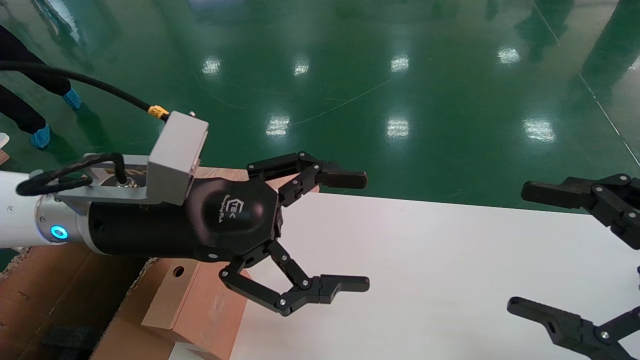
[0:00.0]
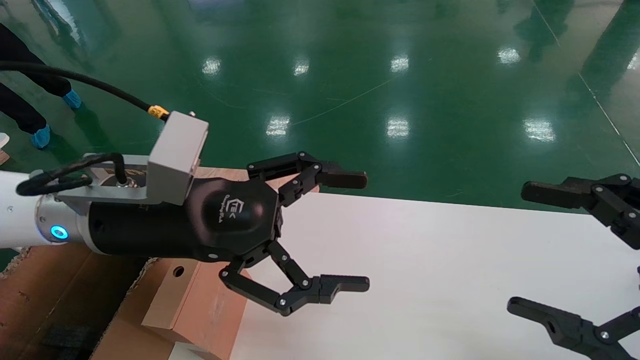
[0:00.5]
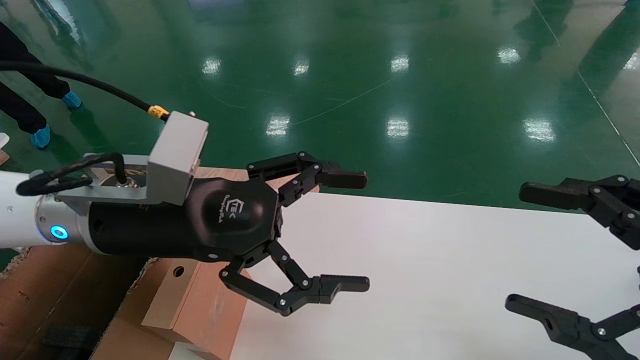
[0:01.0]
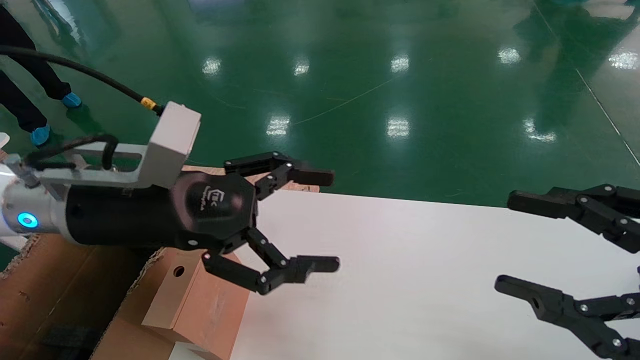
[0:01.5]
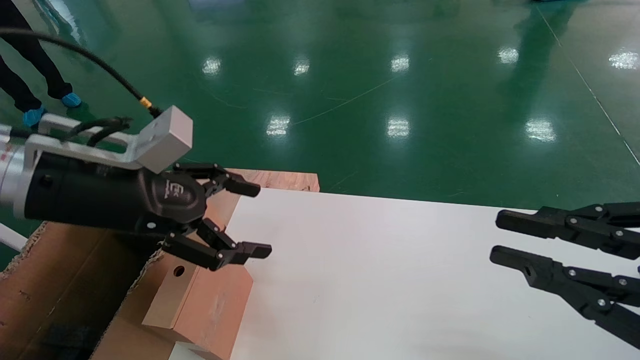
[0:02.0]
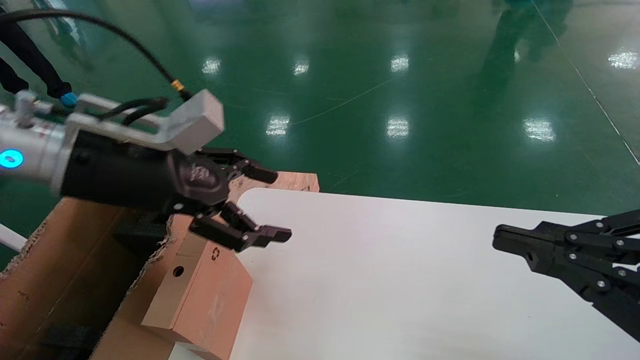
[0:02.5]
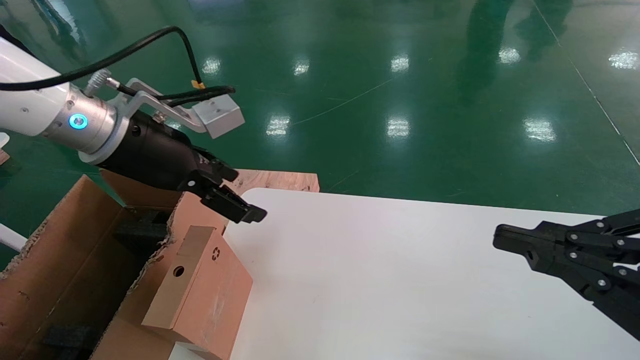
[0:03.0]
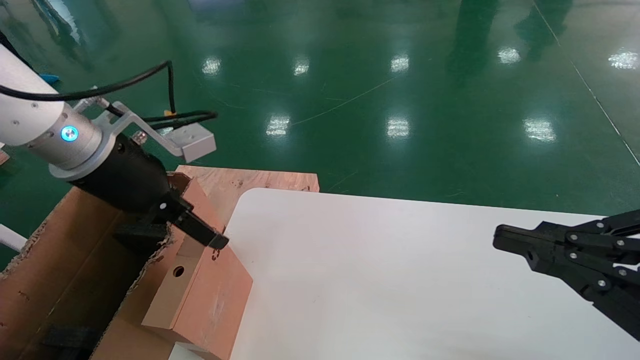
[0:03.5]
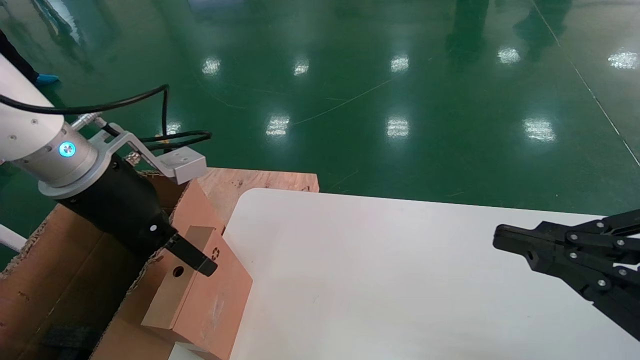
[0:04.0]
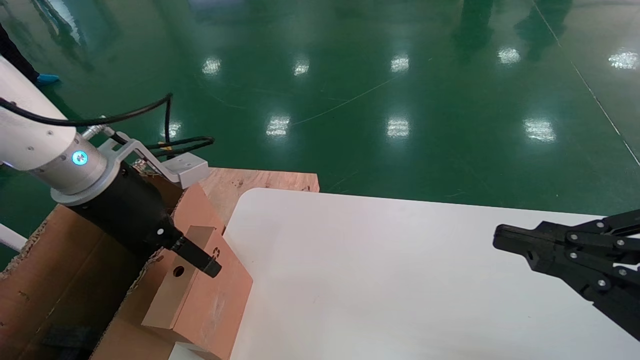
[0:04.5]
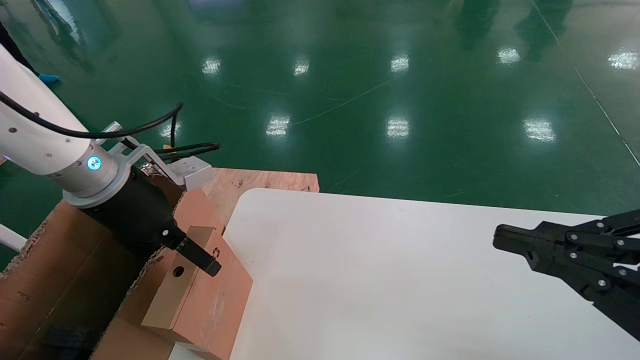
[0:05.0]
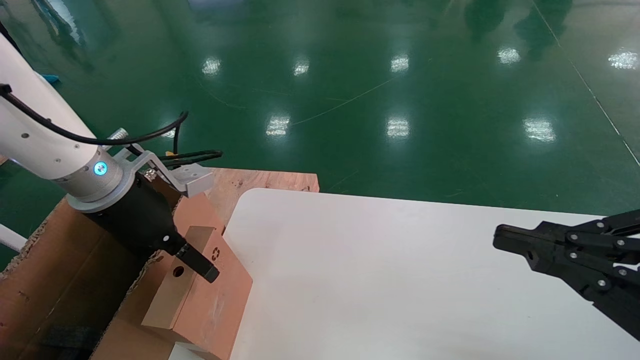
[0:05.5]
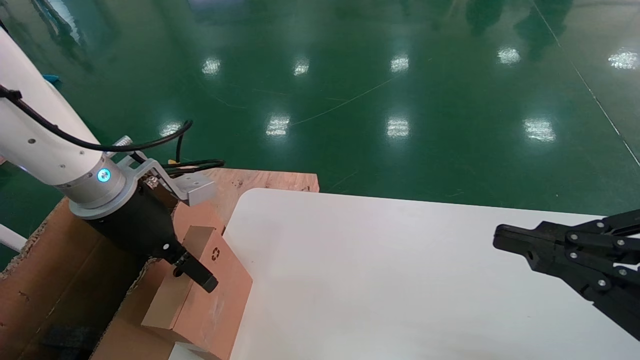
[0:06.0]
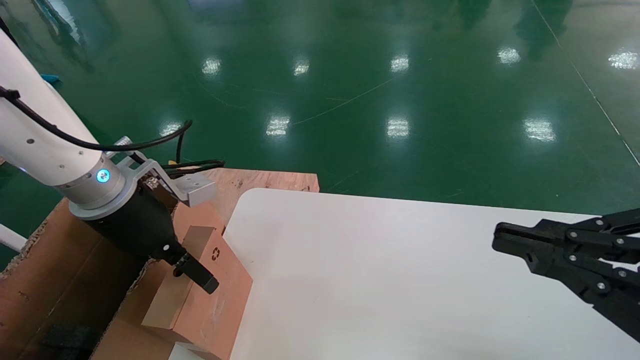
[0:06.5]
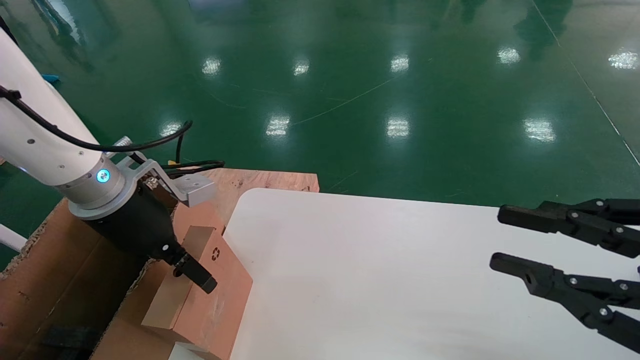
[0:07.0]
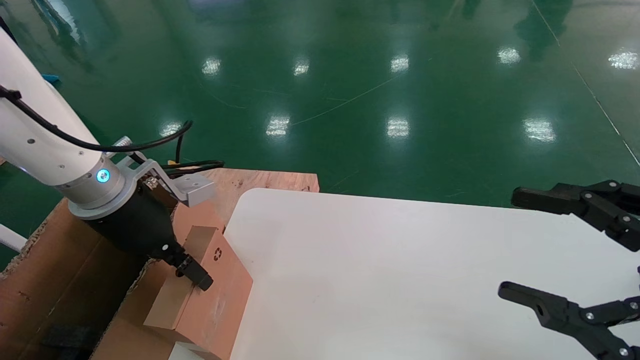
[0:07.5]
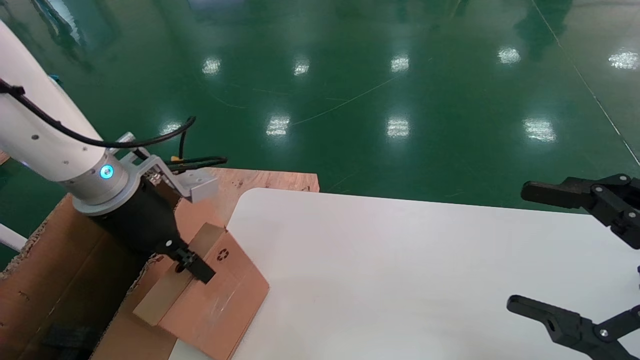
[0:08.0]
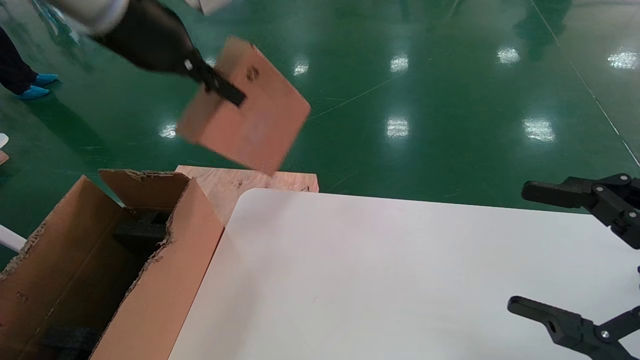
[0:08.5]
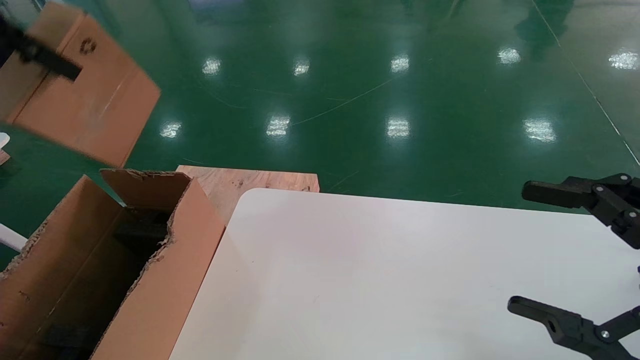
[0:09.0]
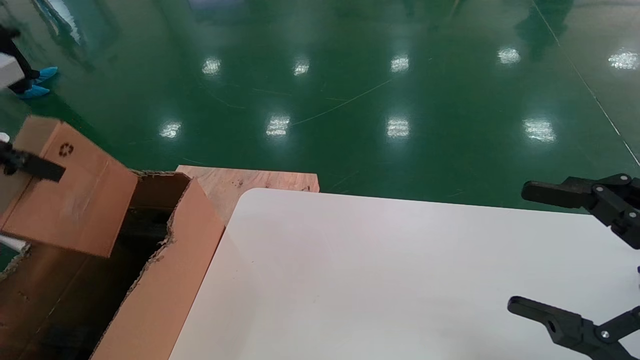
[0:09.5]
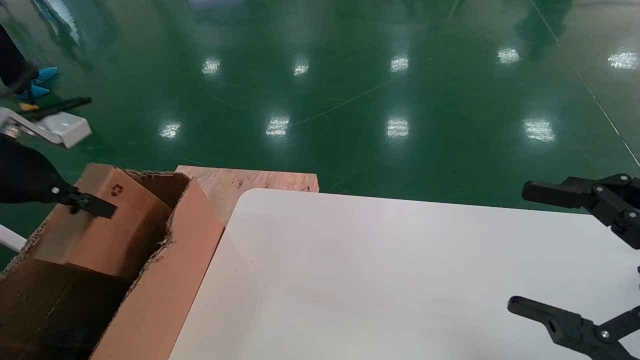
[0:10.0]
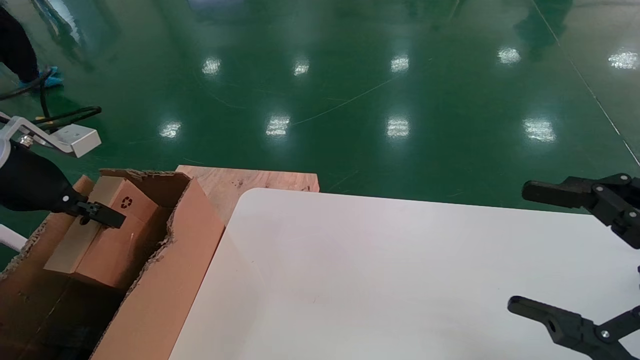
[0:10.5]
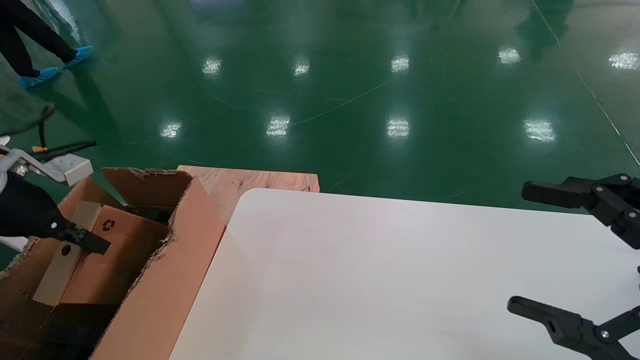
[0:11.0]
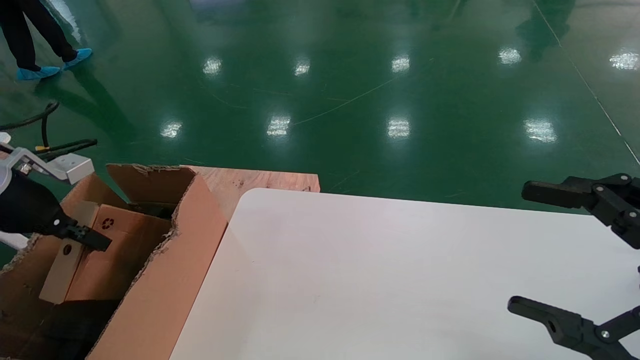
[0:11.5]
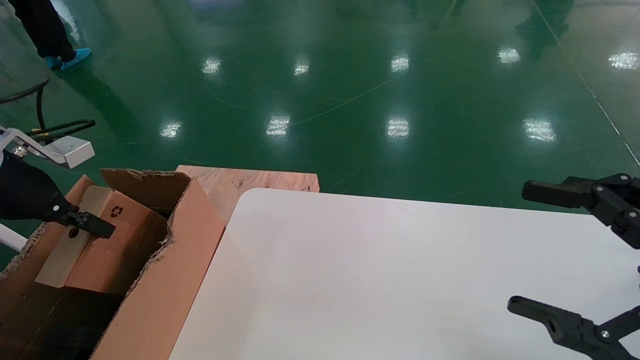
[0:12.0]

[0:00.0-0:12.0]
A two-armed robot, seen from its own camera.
Task of the whole recording: place the small box on the table into the large box on the left.
Step, 0:02.0 to 0:08.0: Pick up the mouse and the power cord paper box.
0:00.0 to 0:02.0: The right gripper closes, while the left gripper heads to the left, covering approximately 5 cm.
0:04.0 to 0:06.0: The grippers stay close to where they were, moving slightly.
0:06.0 to 0:08.0: The right gripper opens its fingers. Meanwhile the left gripper closes its fingers.
0:08.0 to 0:10.0: The left gripper travels to the left by about 15 cm, and travels upward and back again, about 20 cm each way.

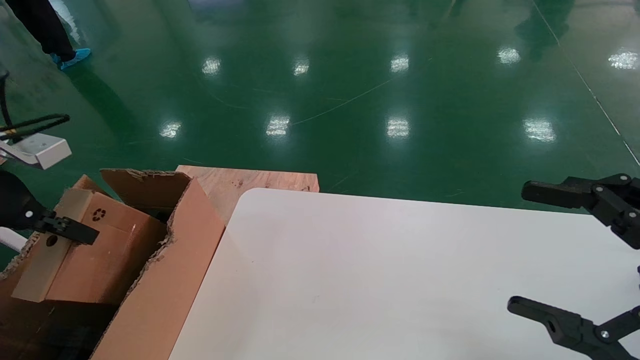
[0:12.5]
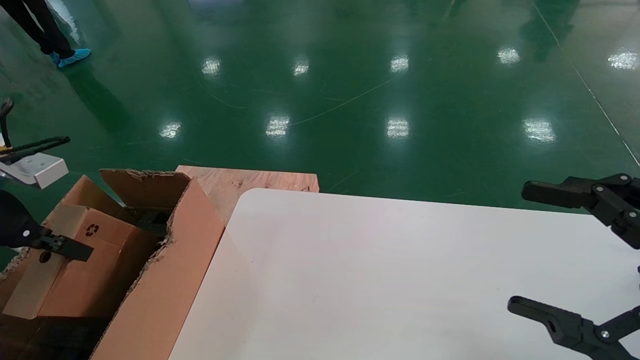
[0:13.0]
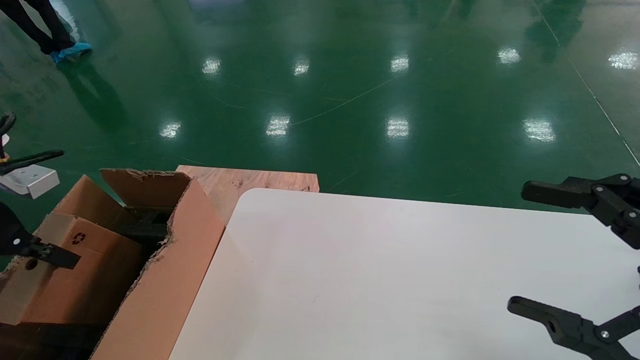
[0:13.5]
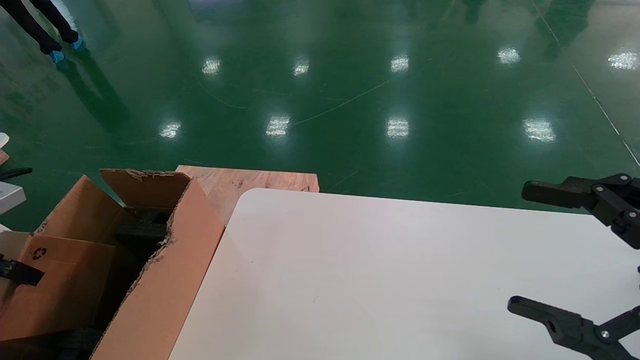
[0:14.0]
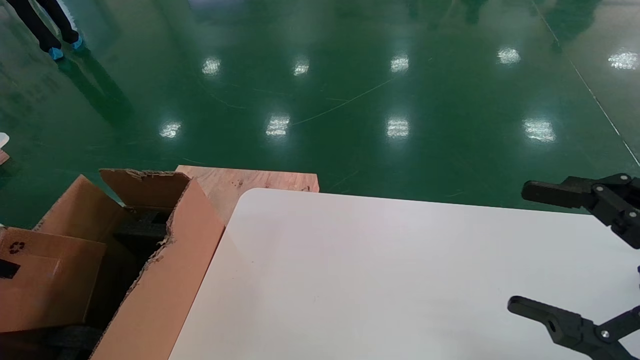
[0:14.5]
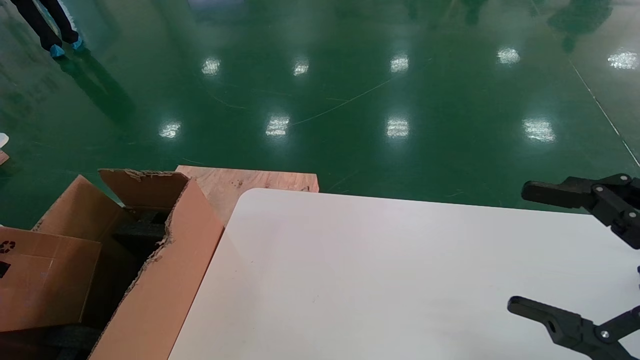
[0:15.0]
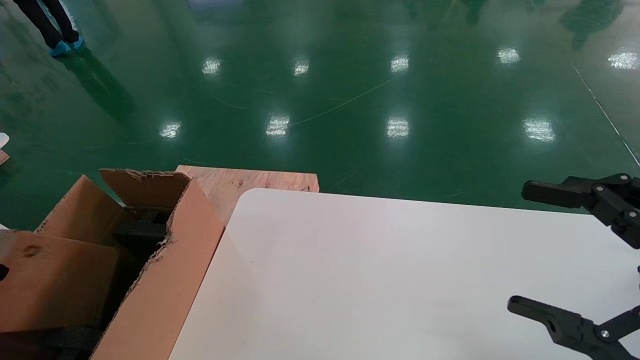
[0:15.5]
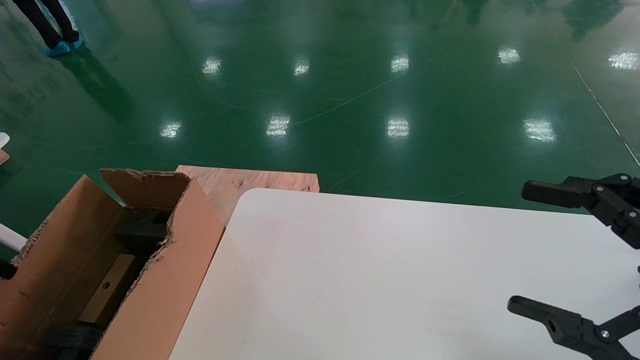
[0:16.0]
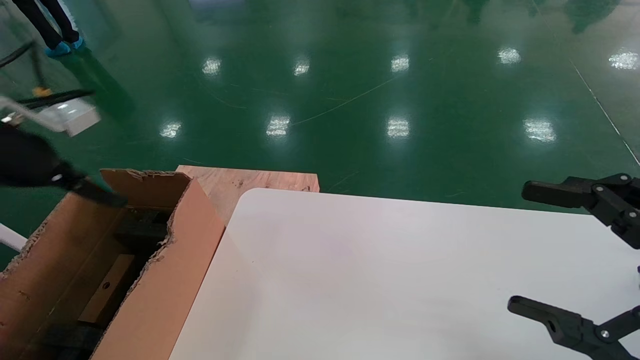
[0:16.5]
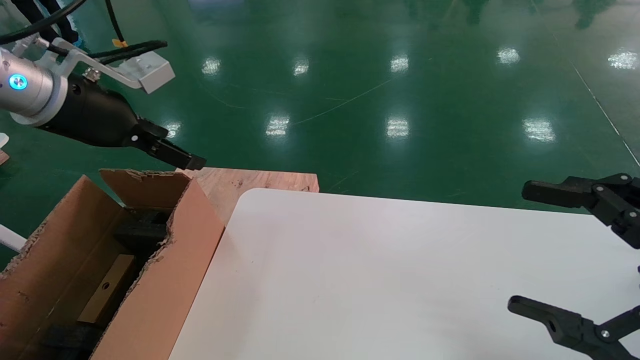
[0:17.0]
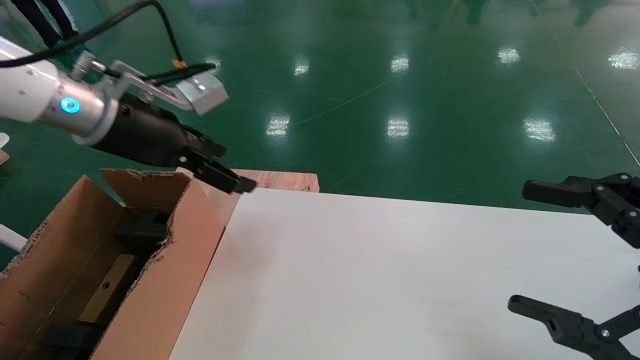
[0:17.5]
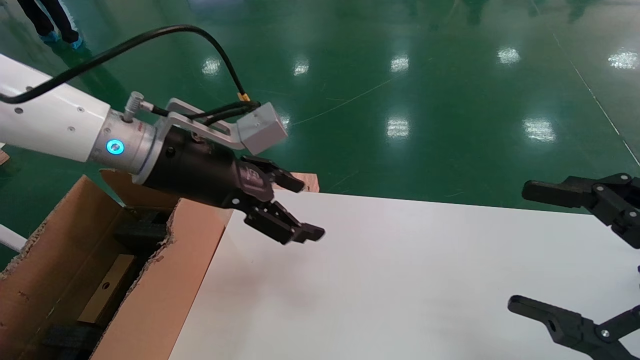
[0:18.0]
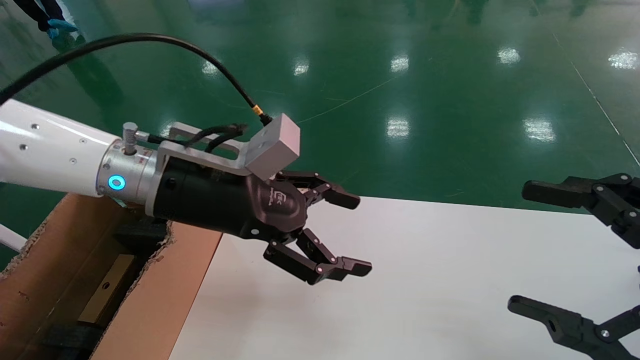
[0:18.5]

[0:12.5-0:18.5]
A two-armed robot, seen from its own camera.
Task of the whole recording: place the small box on the table into the large box on the left.
Step, 0:12.5 to 0:15.5: Place the mouse and the power cord paper box into the container.
0:12.5 to 0:14.5: The left gripper goes some 15 cm to the left and downward.
0:14.5 to 0:16.5: The left gripper shifts some 15 cm to the right, upward and forward, and opens its fingers.
0:16.5 to 0:18.5: The left gripper moves to the right, about 25 cm.
